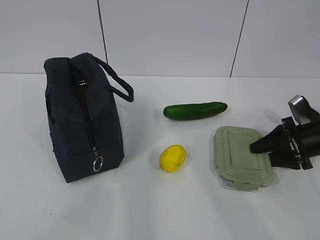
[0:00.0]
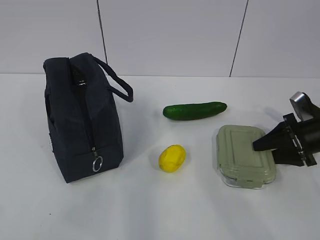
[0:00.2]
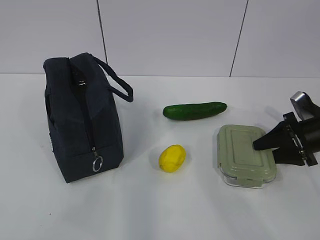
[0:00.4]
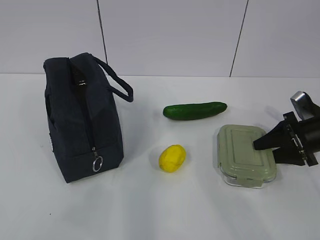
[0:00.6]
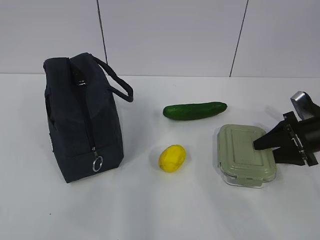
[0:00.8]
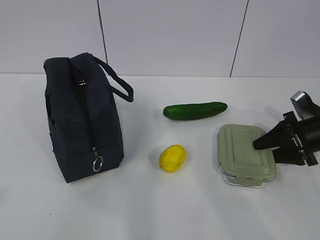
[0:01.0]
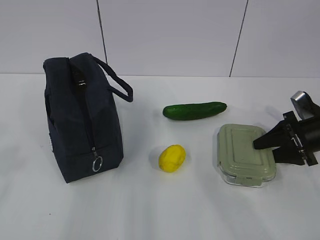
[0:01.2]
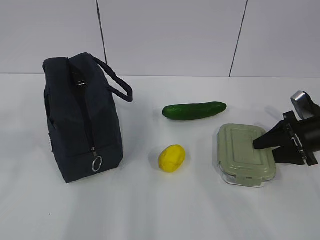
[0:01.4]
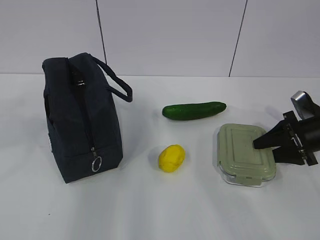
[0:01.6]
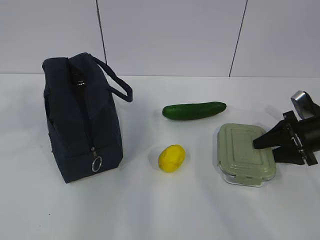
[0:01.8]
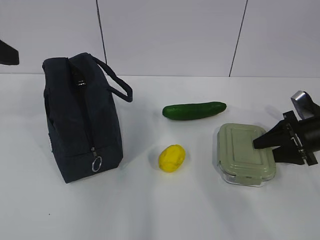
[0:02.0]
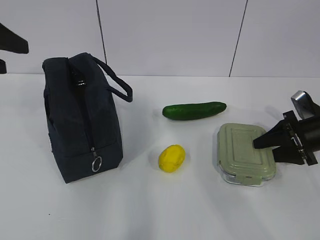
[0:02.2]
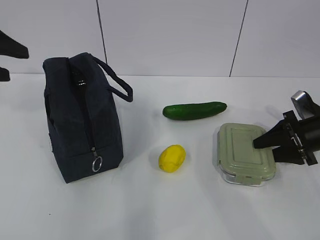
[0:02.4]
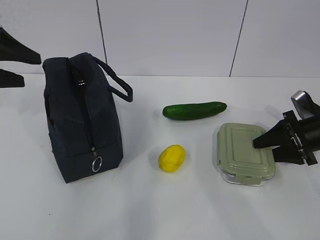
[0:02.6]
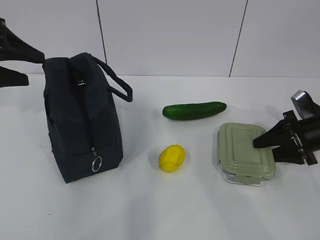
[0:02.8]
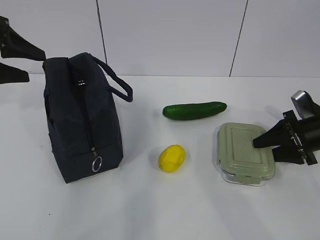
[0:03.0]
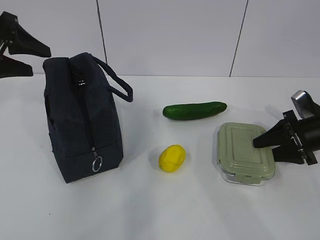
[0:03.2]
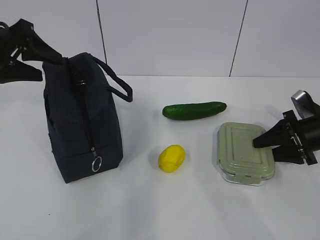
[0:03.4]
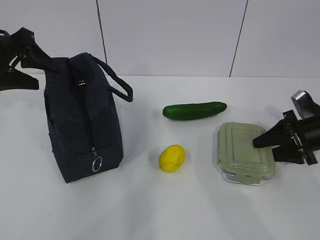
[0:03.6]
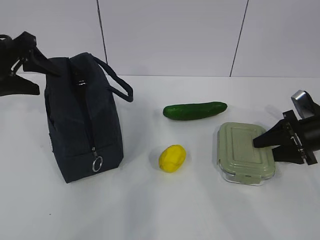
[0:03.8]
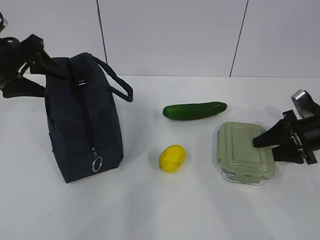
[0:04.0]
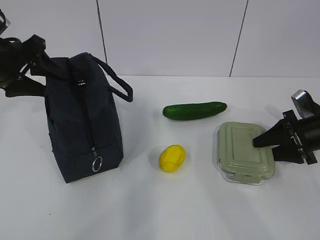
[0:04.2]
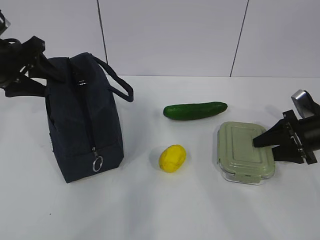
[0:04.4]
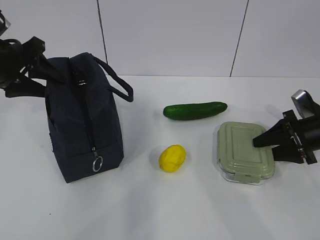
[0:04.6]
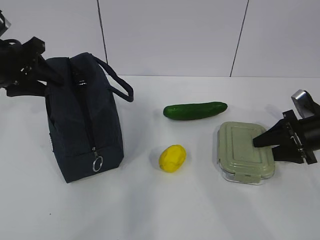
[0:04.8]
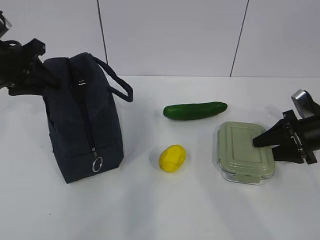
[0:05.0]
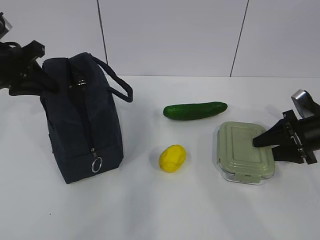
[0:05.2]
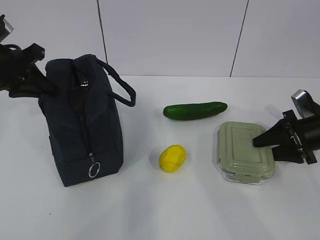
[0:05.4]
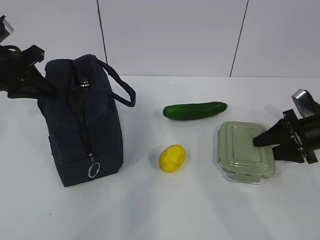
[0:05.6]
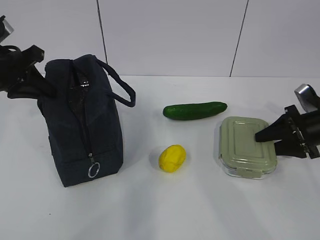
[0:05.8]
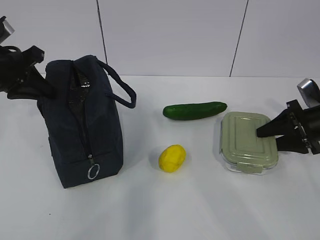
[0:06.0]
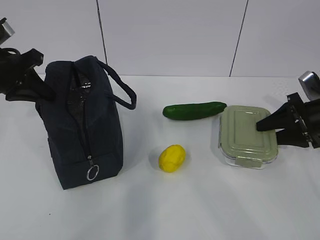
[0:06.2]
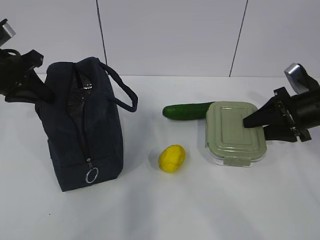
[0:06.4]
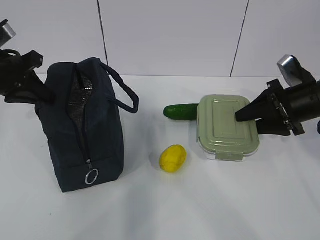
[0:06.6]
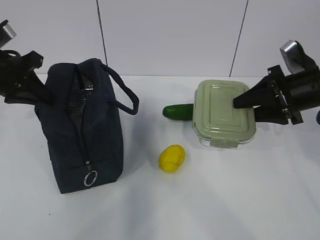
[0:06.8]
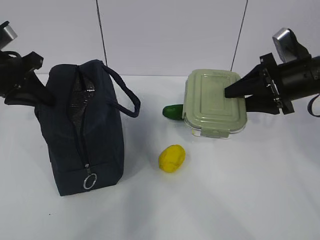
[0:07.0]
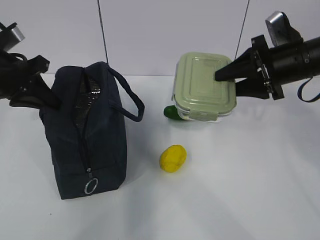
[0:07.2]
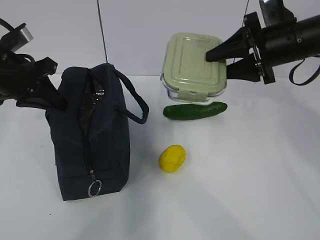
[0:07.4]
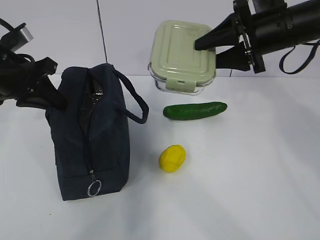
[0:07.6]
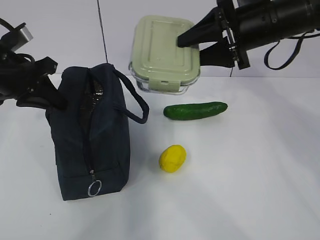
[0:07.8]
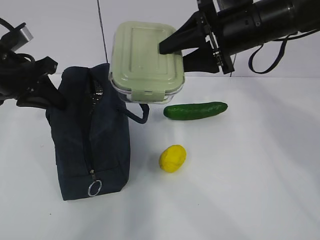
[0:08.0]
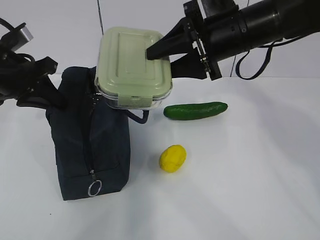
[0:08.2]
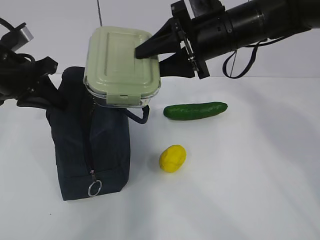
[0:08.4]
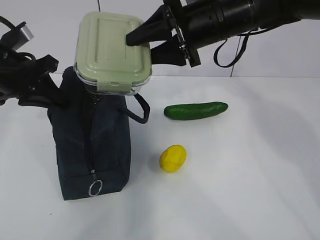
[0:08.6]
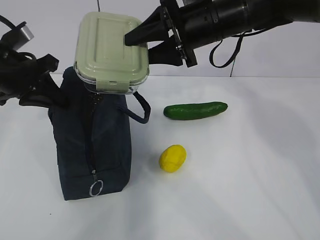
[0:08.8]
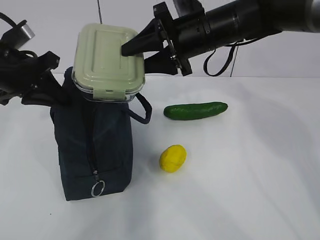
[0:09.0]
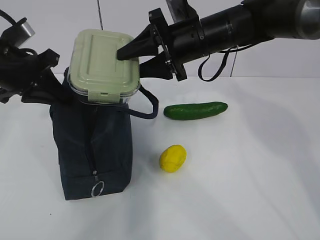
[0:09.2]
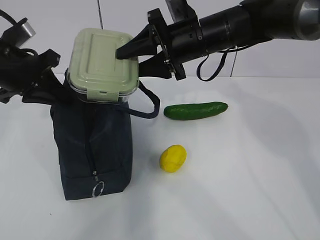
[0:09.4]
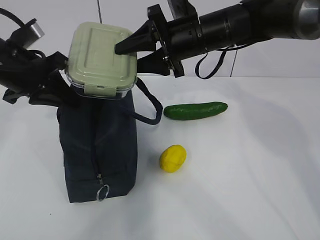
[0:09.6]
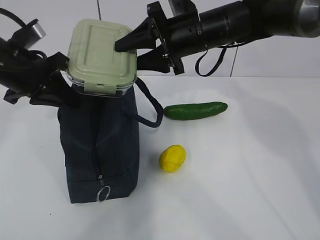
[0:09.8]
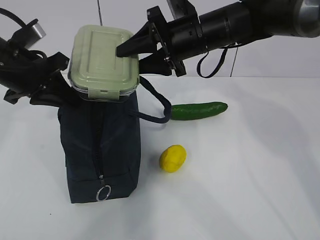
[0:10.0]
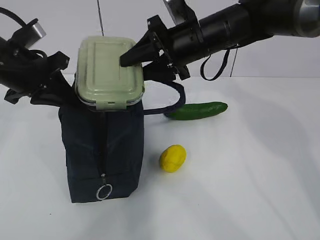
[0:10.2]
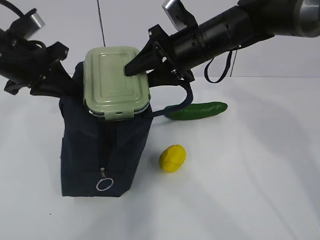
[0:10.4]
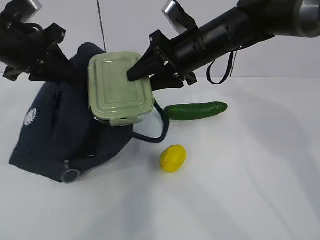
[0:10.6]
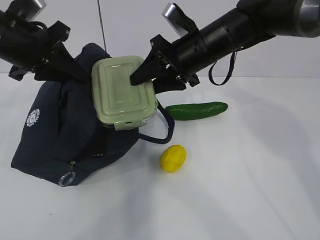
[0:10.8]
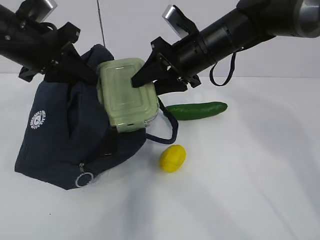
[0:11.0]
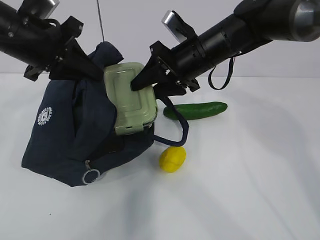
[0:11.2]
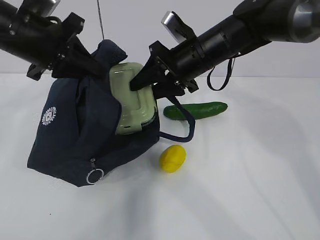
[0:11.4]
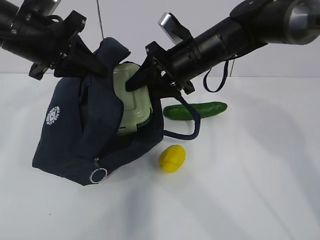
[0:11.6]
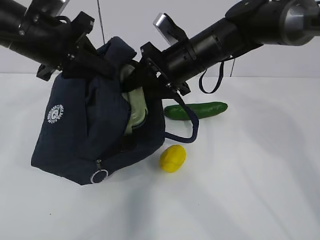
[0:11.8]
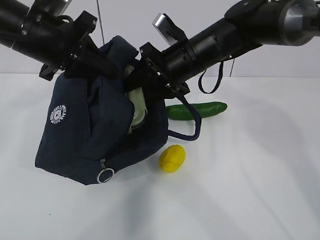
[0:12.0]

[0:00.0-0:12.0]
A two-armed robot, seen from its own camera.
Step, 0:02.2 to 0:06.2: Grab the lunch bag with your left hand.
Step, 0:06.4 to 0:09.0: Place it into the bag with your right hand.
0:00.0 to 0:01.6: The left gripper goes some 15 cm forward.
0:01.6 to 0:03.0: The left gripper moves forward, roughly 20 cm.
0:03.0 to 0:04.4: There are only small adjustments of the grippers.
0:04.4 to 0:06.0: The left gripper closes its fingers.
0:06.0 to 0:07.6: The right gripper is displaced upward and to the left by about 20 cm.
0:07.6 to 0:09.0: The right gripper shifts roughly 10 cm to the left.
0:09.0 to 0:10.4: The grippers make only small movements.
0:10.4 to 0:12.0: The left gripper shifts some 5 cm to the right.

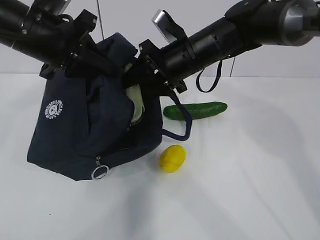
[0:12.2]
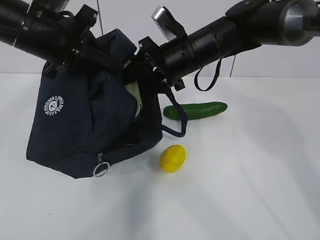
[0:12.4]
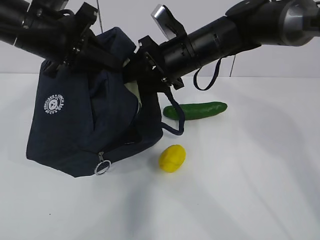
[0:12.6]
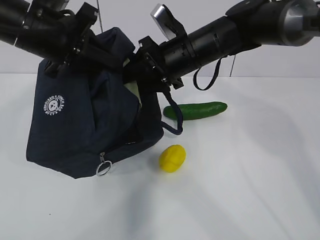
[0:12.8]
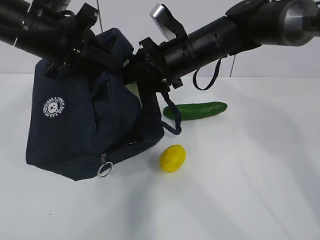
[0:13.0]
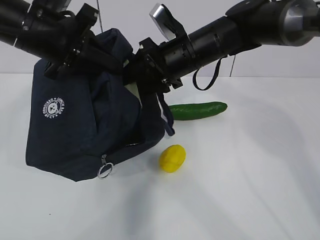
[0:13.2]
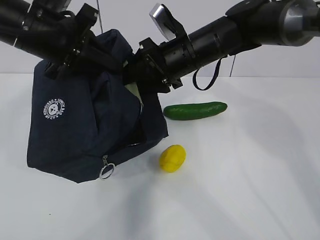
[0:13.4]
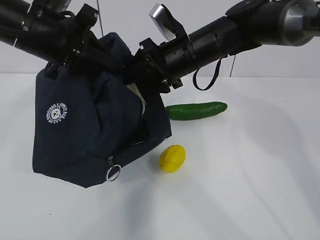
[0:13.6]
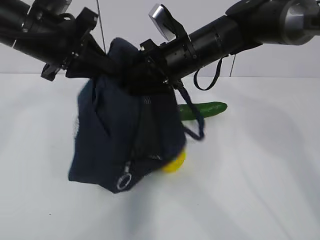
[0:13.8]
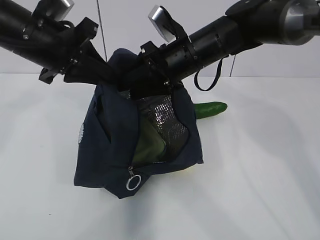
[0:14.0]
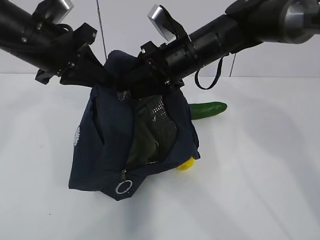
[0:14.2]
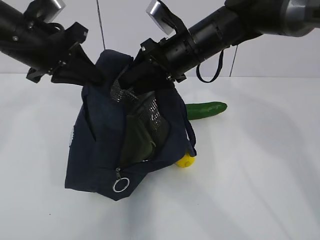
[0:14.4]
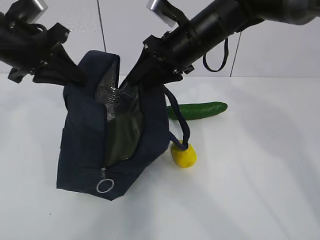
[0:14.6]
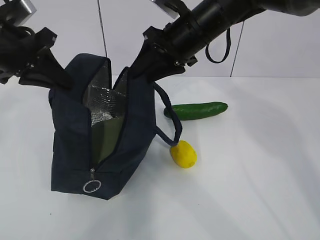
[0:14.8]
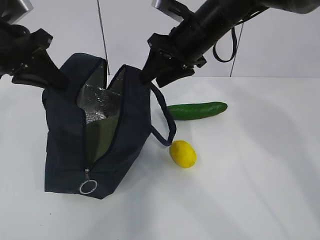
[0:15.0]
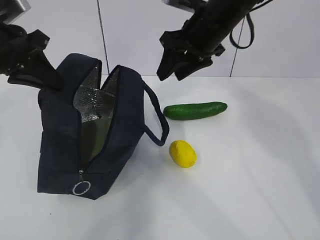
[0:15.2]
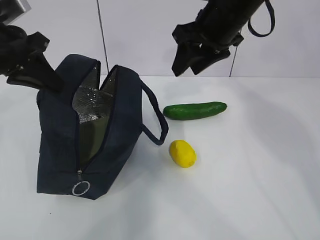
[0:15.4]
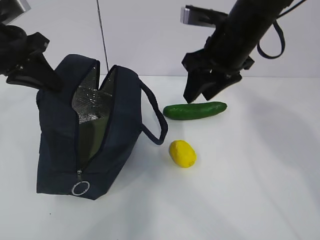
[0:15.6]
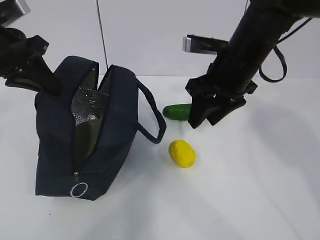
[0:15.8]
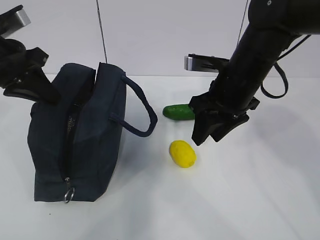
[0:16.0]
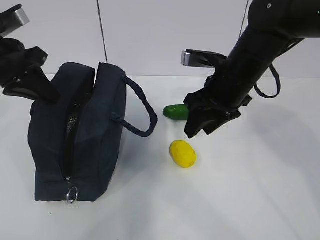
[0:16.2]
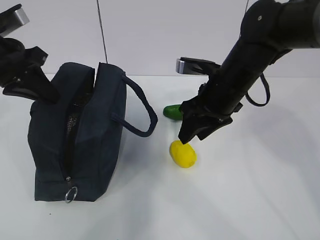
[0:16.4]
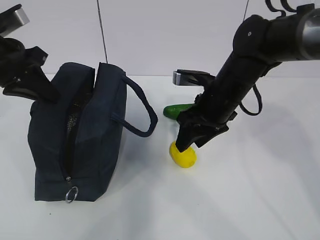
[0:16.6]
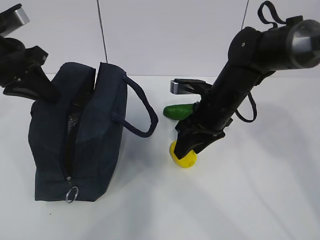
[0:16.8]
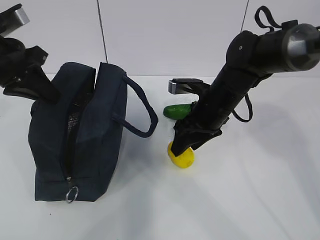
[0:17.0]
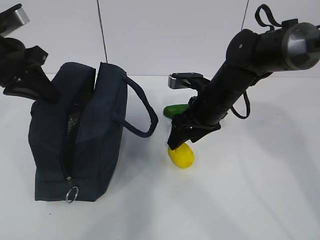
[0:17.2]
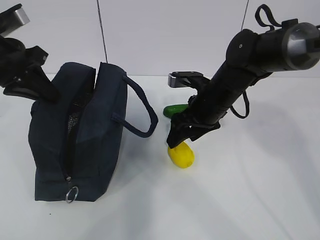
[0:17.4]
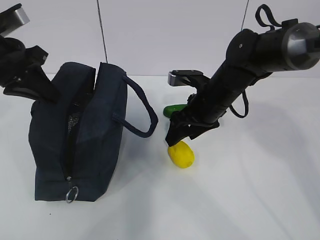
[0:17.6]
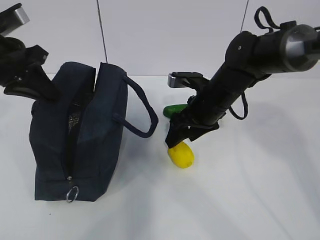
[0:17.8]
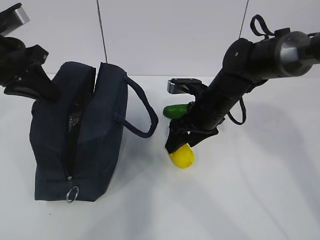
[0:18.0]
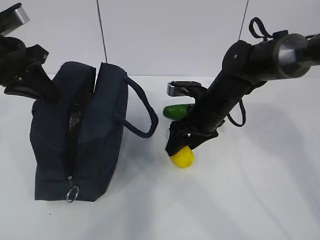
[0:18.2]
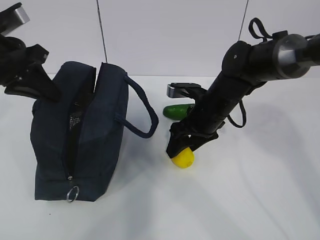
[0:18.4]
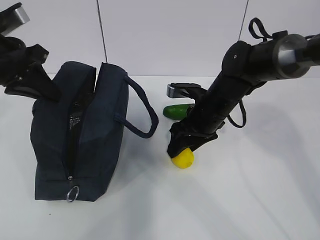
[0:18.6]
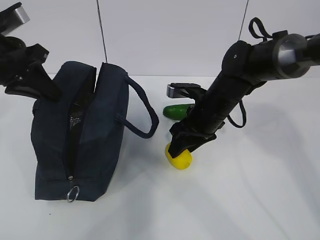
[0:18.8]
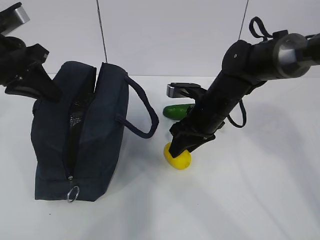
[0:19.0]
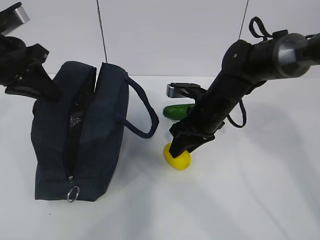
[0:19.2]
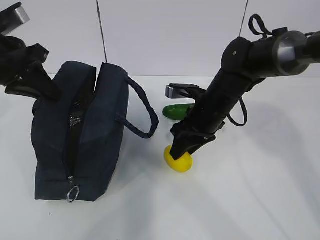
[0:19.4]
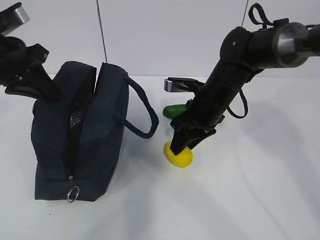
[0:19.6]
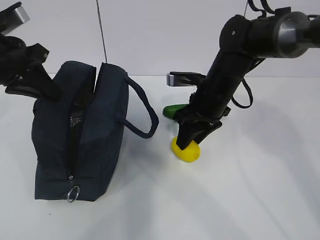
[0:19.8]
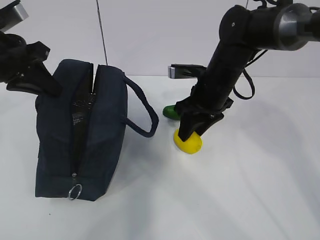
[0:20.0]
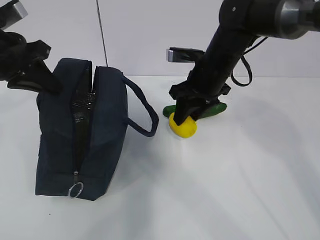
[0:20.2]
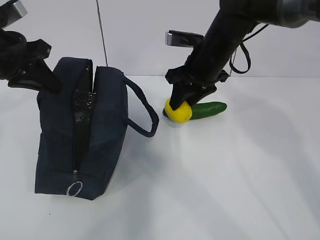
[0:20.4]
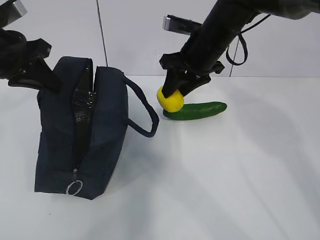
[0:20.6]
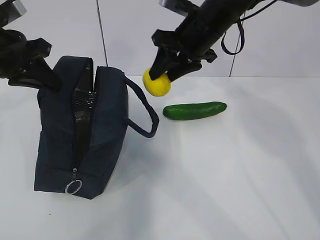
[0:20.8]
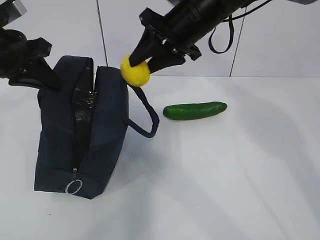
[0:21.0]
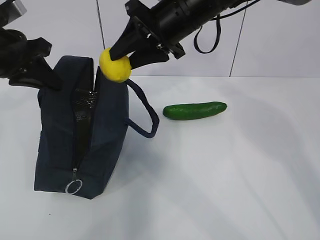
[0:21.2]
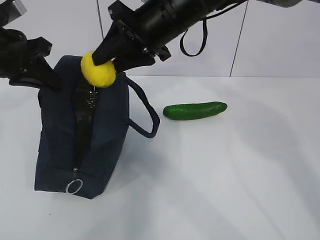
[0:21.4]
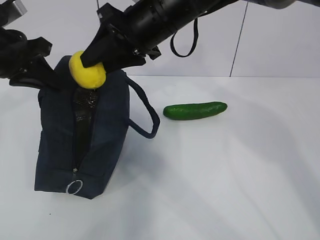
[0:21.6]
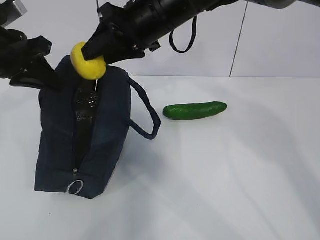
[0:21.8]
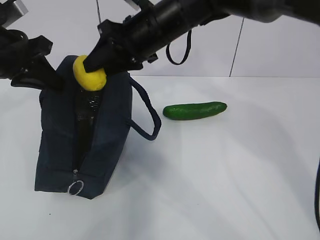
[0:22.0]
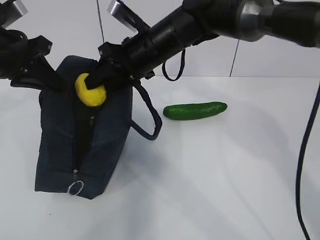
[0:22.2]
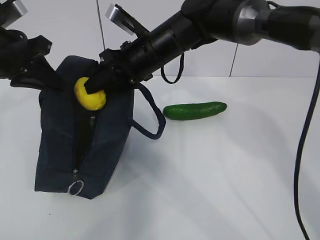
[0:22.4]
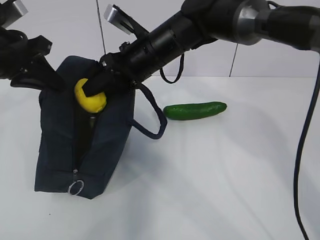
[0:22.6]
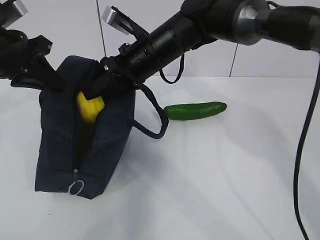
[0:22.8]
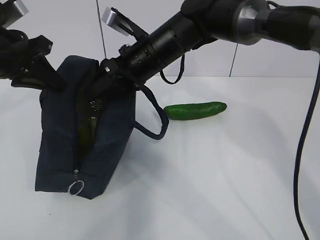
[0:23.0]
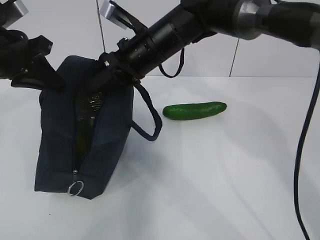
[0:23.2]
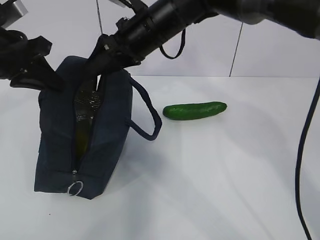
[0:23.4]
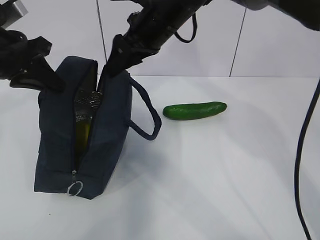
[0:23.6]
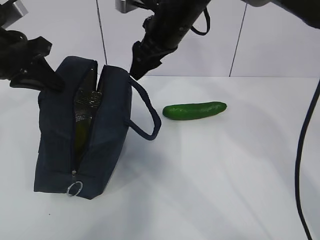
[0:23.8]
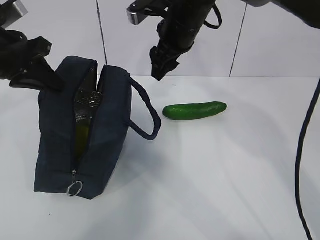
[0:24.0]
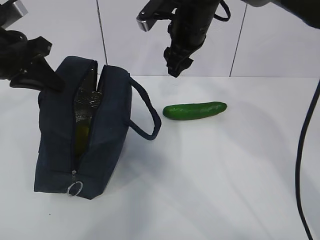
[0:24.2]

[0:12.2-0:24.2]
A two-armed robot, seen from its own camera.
Step, 0:13.6 to 0:16.4: Place it into the bag with your right hand.
Step, 0:16.6 to 0:20.0: Grab the cucumber with your right hand.
0:12.2 to 0:13.8: The grippers move only a little.
0:13.8 to 0:15.2: The right gripper changes place by approximately 5 cm. The left gripper moves to the left, roughly 5 cm.
0:15.2 to 0:16.6: The right gripper is displaced downward by some 10 cm.
0:16.6 to 0:18.2: The right gripper moves roughly 5 cm.
0:18.2 to 0:19.8: The right gripper closes up.
0:19.8 to 0:21.2: The right gripper moves upward and to the left, roughly 15 cm.
0:21.2 to 0:22.6: The right gripper travels downward and to the left by roughly 10 cm.
0:22.6 to 0:24.2: The right gripper moves to the right, about 5 cm.
